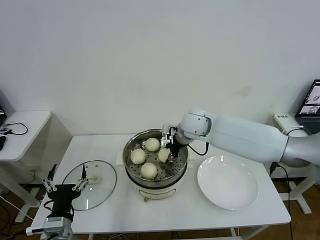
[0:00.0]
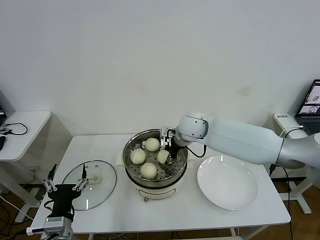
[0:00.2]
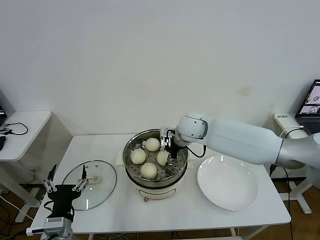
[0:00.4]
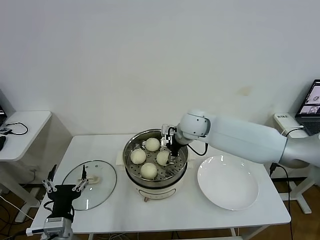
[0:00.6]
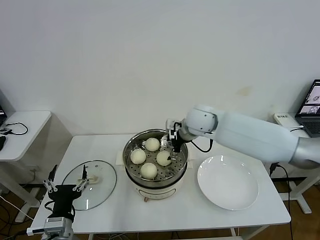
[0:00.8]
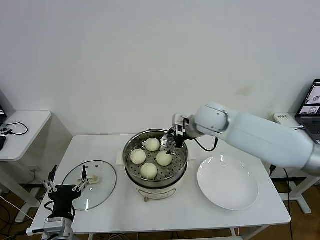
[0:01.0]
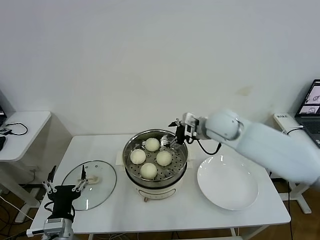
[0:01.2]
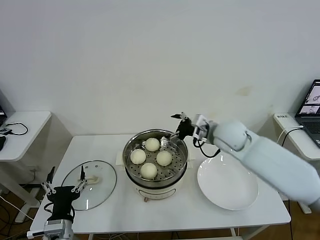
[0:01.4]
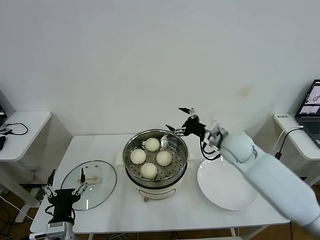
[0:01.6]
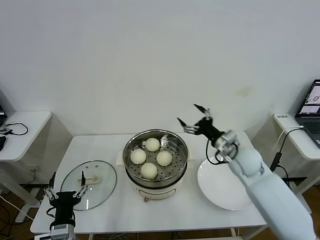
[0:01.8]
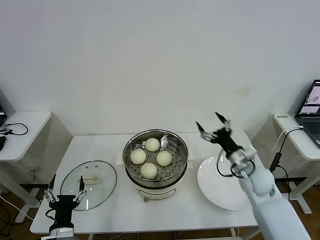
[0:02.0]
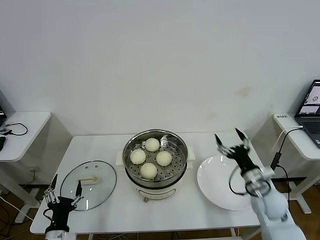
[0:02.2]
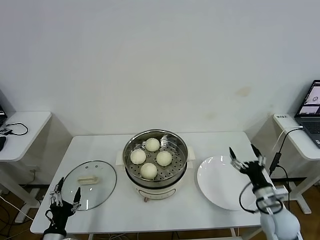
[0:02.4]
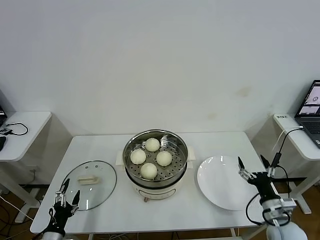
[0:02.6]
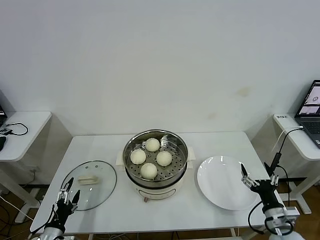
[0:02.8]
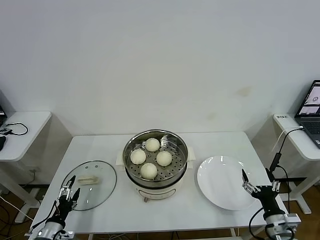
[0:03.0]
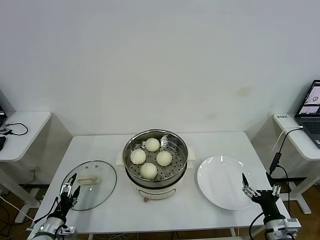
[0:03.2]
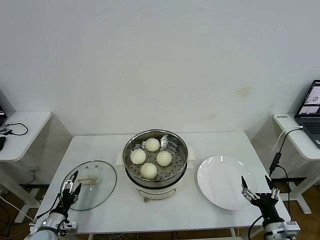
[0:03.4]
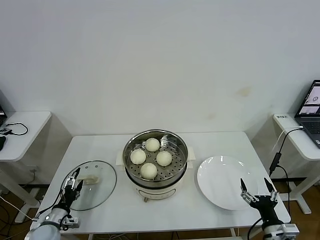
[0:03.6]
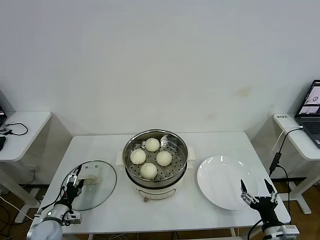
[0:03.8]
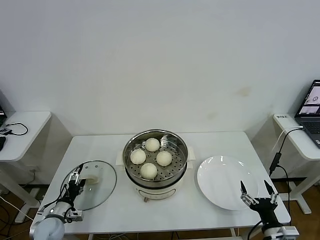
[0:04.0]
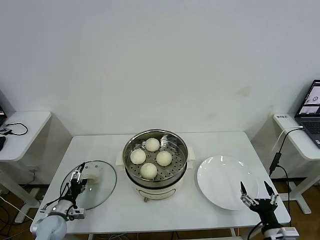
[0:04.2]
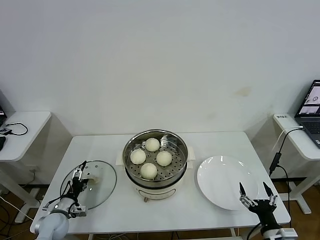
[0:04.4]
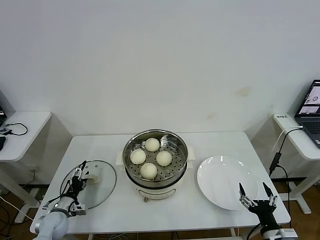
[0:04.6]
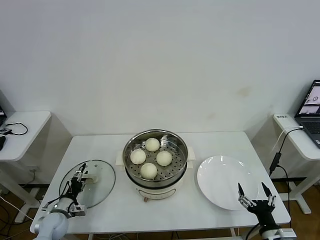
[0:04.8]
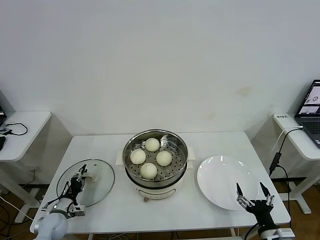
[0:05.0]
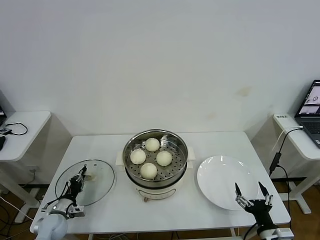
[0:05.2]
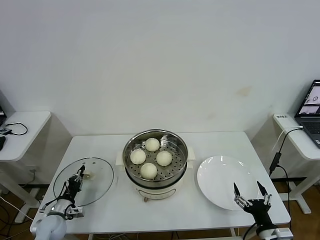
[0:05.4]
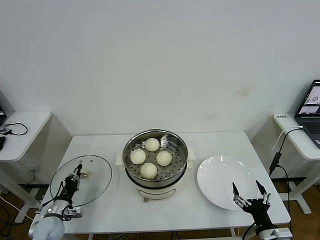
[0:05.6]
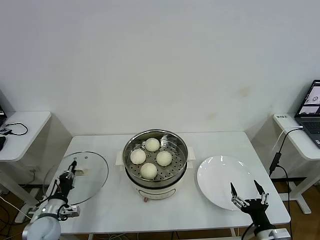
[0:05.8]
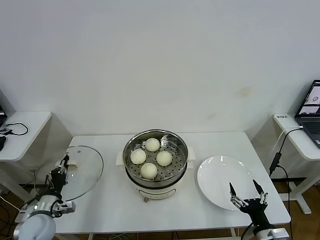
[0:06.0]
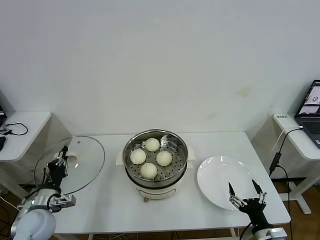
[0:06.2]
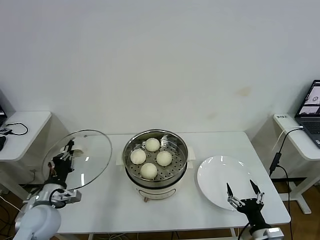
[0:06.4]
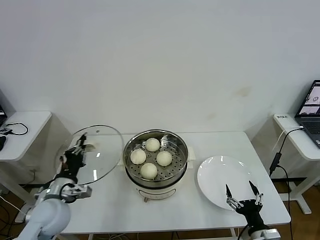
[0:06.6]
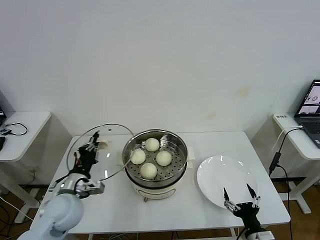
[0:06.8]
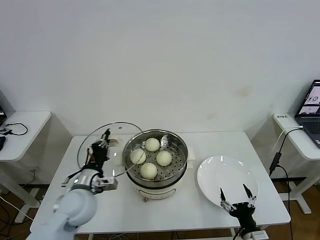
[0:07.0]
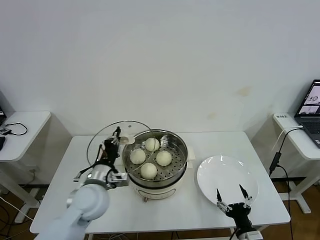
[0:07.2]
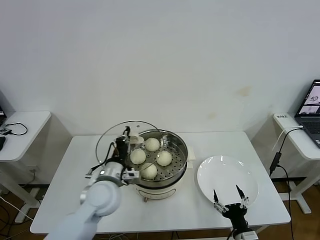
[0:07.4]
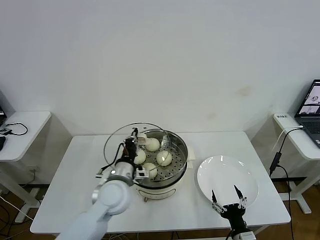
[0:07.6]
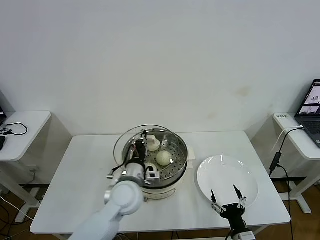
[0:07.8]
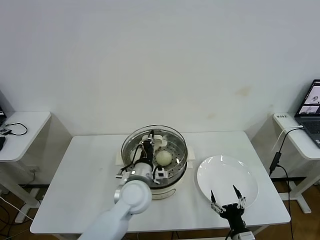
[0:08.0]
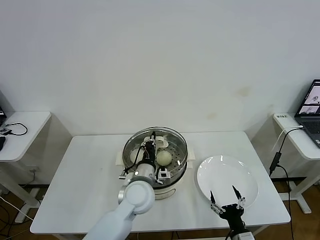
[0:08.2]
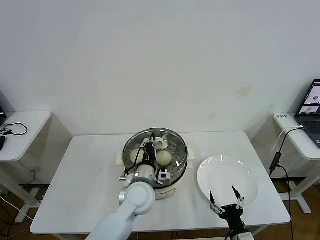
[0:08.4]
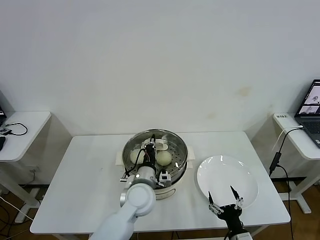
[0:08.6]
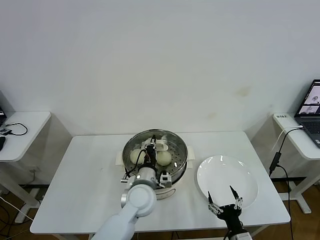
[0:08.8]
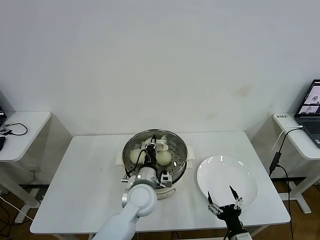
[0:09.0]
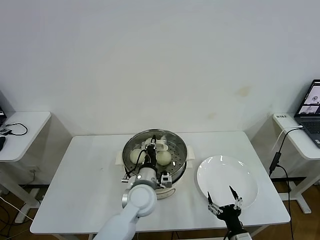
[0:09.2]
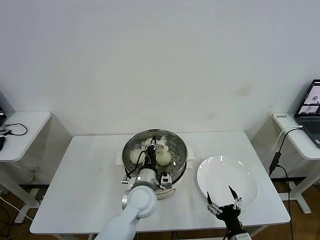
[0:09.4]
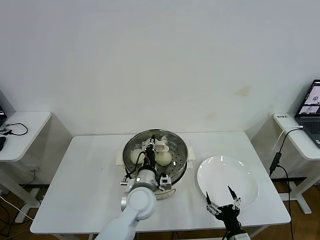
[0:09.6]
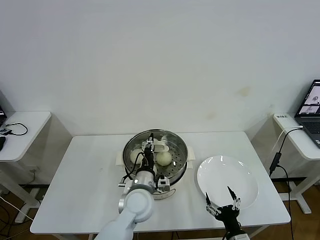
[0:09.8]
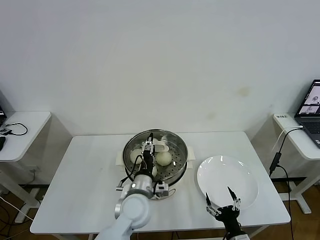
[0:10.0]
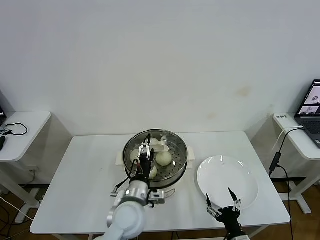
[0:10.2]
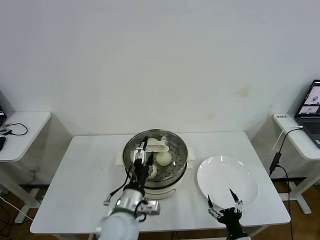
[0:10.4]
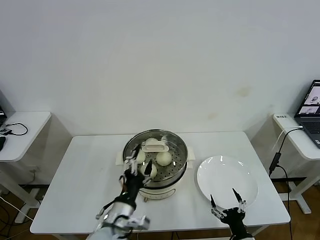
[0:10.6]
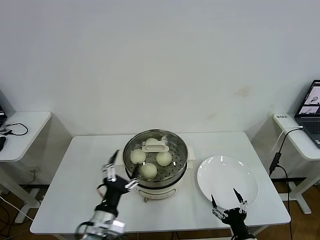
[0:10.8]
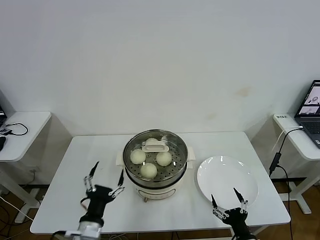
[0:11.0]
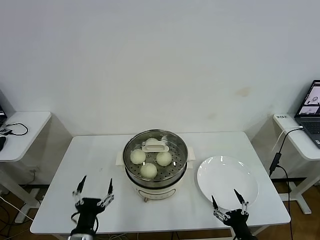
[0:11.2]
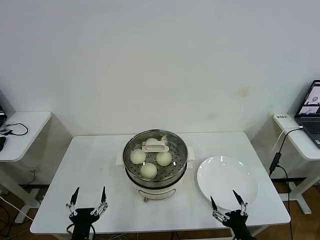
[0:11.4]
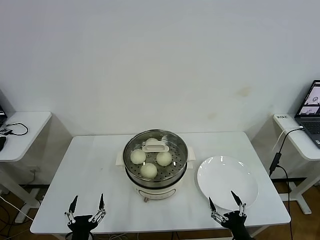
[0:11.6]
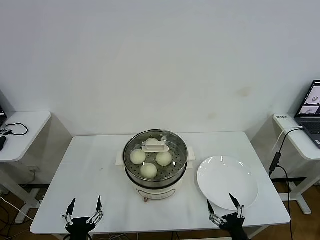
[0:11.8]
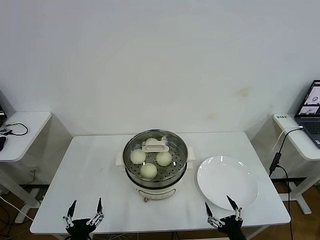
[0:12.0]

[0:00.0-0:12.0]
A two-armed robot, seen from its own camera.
Task of the whole recording: take steamed baozi put them in steamer then cover it.
Step, 0:00.6 to 0:05.2: Grasp the pot lid with left gripper.
Step, 0:05.6 to 0:09.6: Place the pot lid on the steamer with left gripper.
0:00.0 to 0:01.6: The right gripper goes approximately 15 cm to the right and backward, and opens up.
0:01.6 to 0:03.0: The right gripper travels backward, downward and to the right by approximately 35 cm, while the left gripper heads to the left and downward, covering roughly 20 cm.
0:03.0 to 0:04.4: The left gripper goes some 10 cm forward.
0:04.4 to 0:06.0: The left gripper is displaced upward by roughly 10 cm, and closes.
0:06.0 to 0:07.6: The right gripper travels to the left by roughly 5 cm, while the left gripper moves to the right and upward, roughly 25 cm.
0:07.6 to 0:09.0: The left gripper is displaced to the right by some 10 cm.
0:09.0 to 0:10.4: The left gripper heads backward, covering about 10 cm, and opens its fingers.
0:10.4 to 0:12.0: The left gripper shifts roughly 25 cm backward, to the left and downward.
